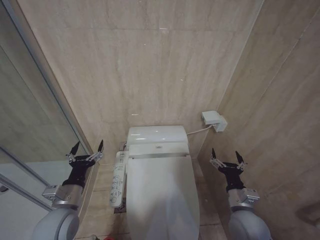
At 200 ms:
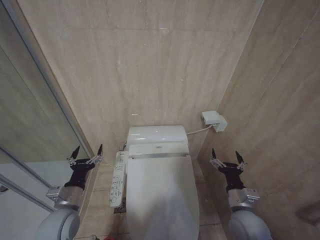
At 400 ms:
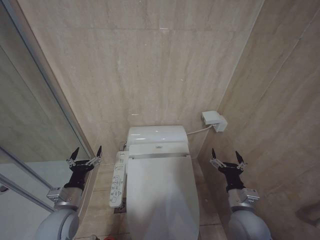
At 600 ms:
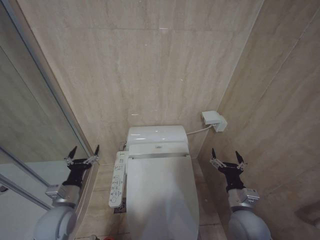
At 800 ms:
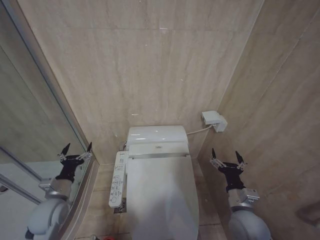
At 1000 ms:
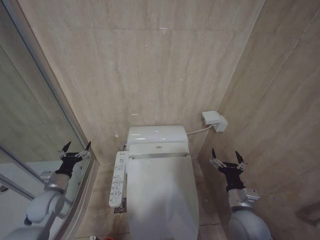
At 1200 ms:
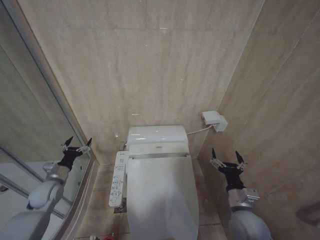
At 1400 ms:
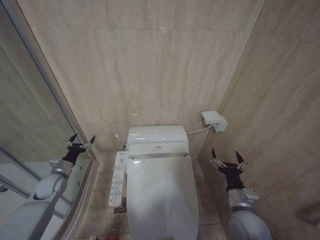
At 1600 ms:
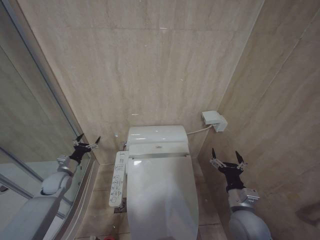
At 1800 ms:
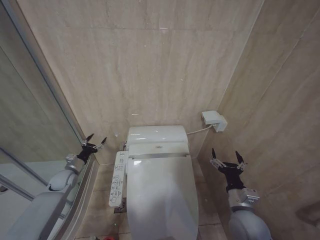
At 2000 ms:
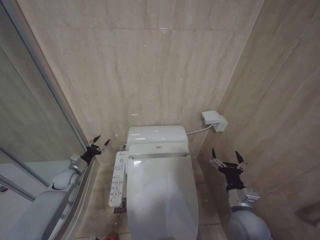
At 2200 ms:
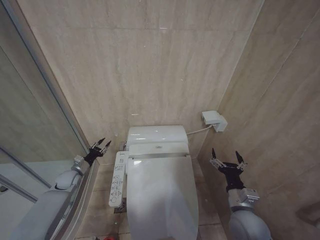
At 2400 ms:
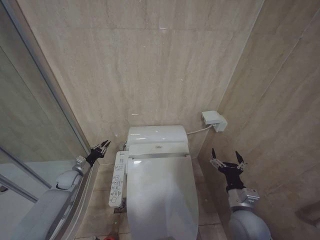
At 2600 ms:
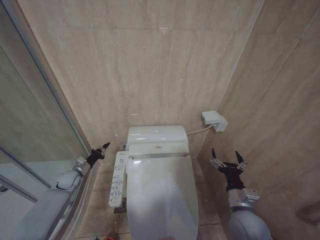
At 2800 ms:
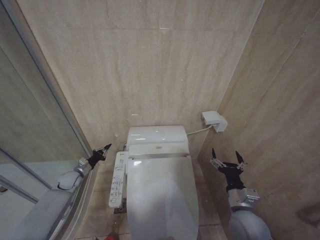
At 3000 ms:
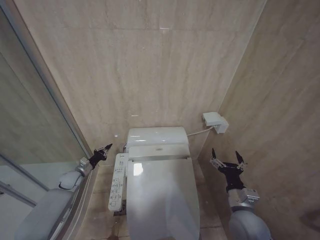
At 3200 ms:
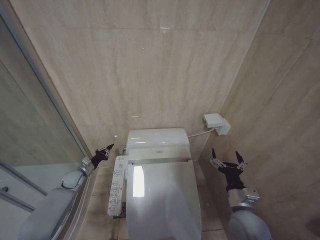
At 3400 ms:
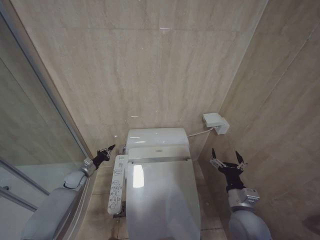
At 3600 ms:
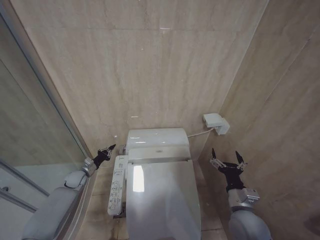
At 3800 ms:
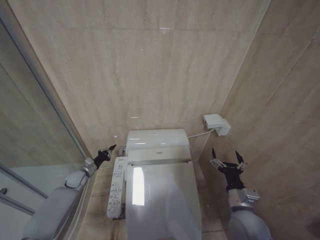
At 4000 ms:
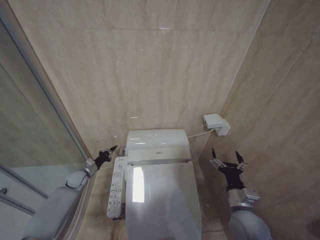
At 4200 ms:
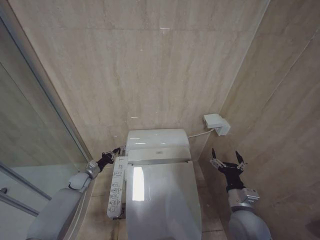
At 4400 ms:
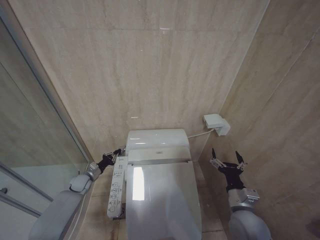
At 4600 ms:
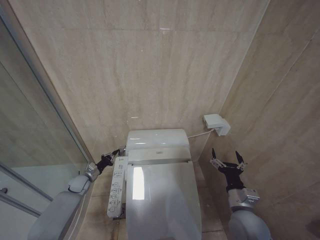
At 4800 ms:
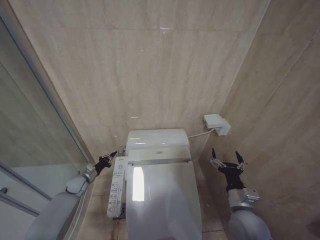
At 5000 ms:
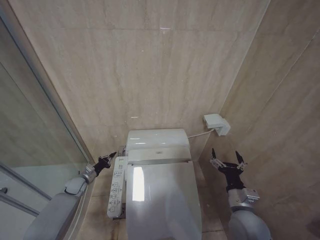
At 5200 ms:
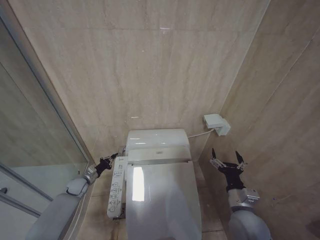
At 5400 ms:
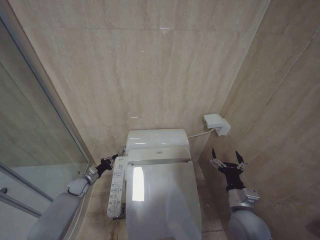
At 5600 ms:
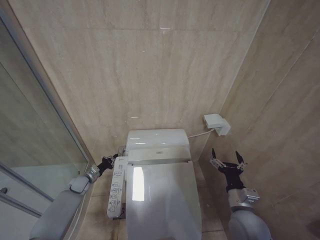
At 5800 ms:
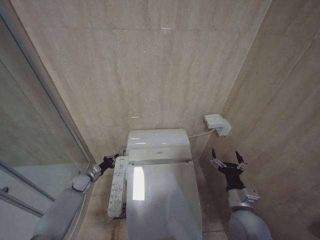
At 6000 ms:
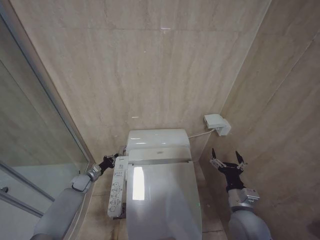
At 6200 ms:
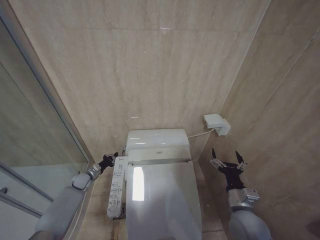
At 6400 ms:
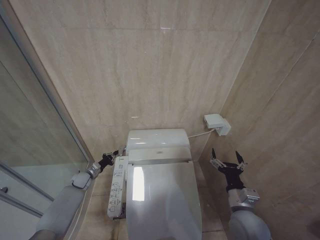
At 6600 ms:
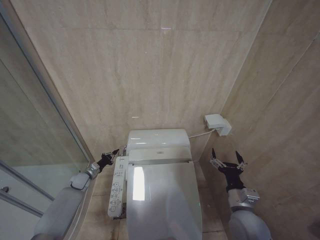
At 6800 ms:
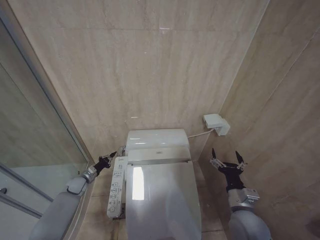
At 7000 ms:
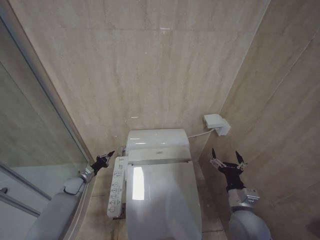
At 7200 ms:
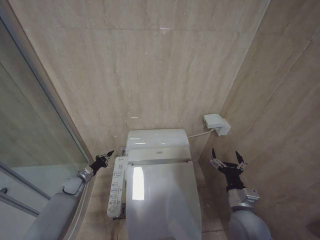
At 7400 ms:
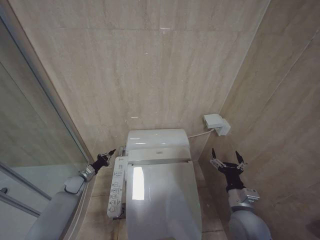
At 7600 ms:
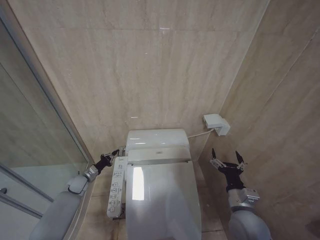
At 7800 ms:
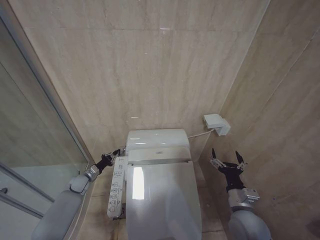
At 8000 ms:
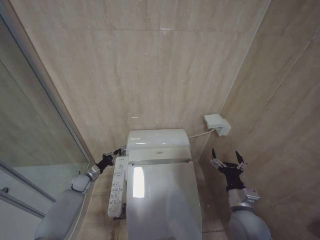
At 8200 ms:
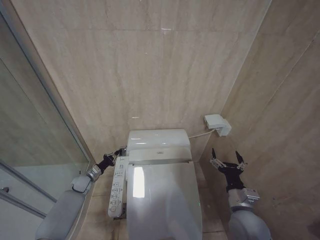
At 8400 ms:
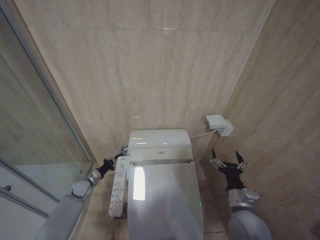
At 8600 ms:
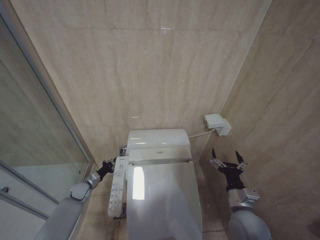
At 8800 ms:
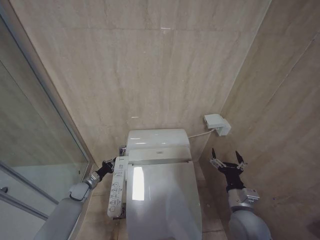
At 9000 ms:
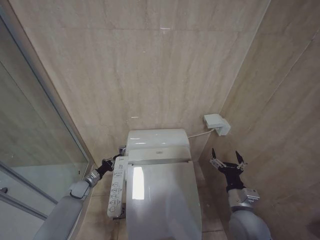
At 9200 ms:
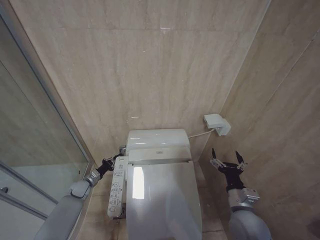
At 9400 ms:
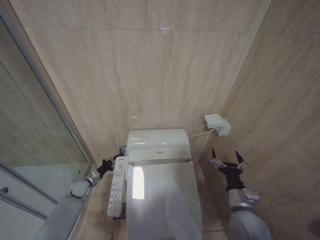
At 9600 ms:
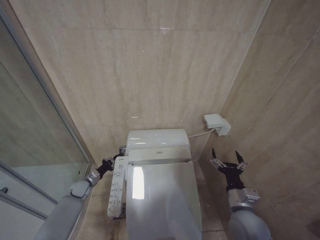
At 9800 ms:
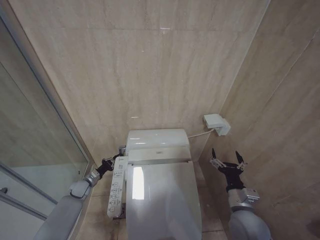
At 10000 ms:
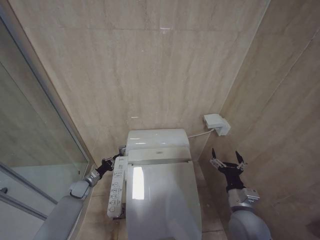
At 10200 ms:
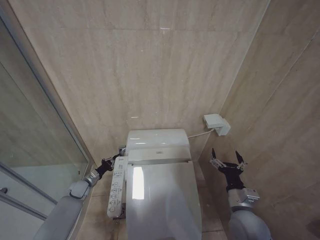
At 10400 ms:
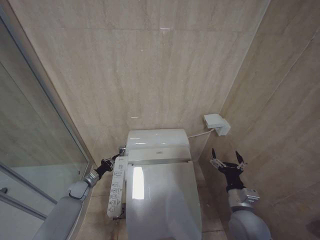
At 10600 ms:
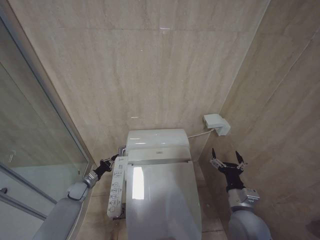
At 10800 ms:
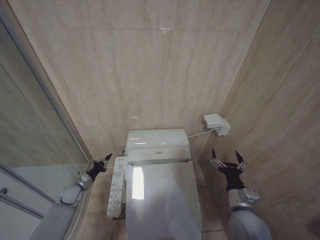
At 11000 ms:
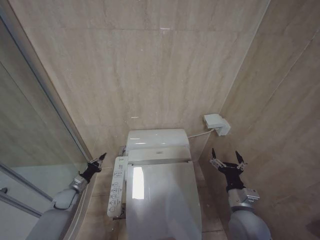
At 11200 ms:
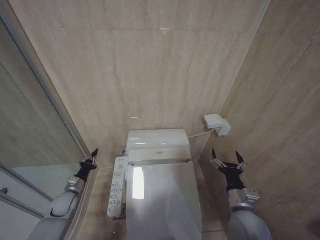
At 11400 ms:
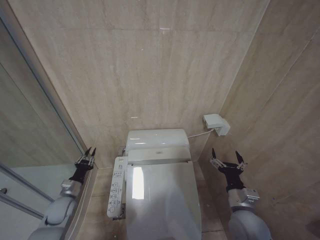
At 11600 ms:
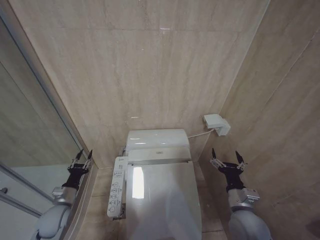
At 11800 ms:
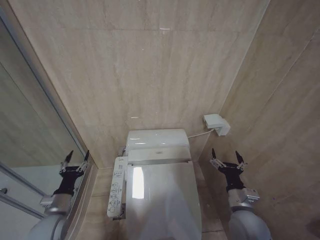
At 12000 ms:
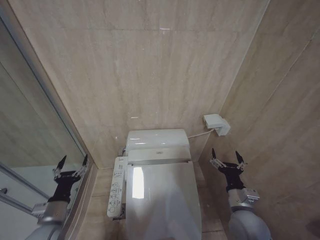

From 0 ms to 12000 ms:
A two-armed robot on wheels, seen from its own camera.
Task of the whole recording: Open the toilet lid, clean the toilet bowl with a toilet brush, close the toilet lid, and flush.
From 0 ms to 1600 ms: The left gripper is displaced forward, to the left and downward by some 25 cm.
From 1600 ms to 3000 ms: The left gripper goes roughly 5 cm downward, and closes up.
From 3000 ms to 4400 ms: The grippers move only a little.
From 6000 ms to 7600 ms: The grippers move only a little.
From 9000 ms to 10400 ms: Neither gripper changes place.
From 10400 ms to 12000 ms: The left gripper travels backward and upward by about 25 cm, and opens.

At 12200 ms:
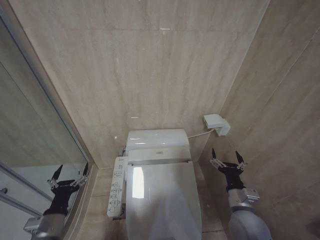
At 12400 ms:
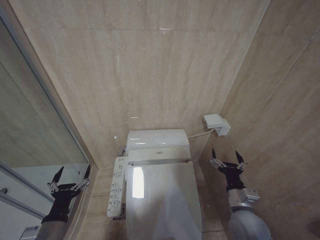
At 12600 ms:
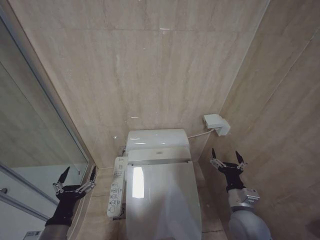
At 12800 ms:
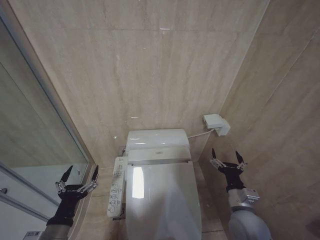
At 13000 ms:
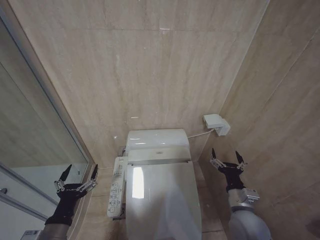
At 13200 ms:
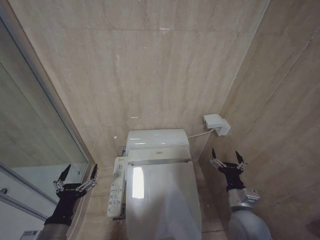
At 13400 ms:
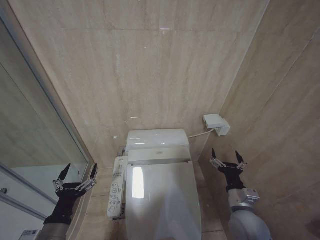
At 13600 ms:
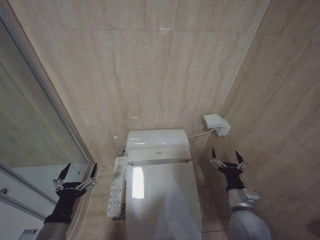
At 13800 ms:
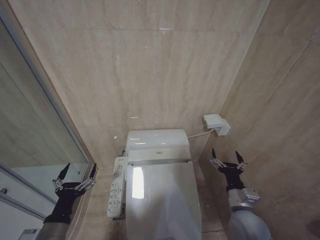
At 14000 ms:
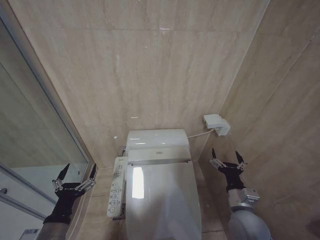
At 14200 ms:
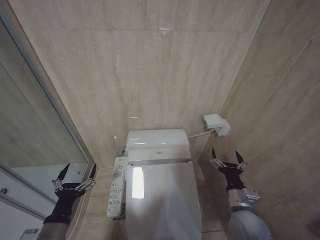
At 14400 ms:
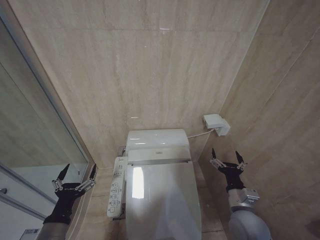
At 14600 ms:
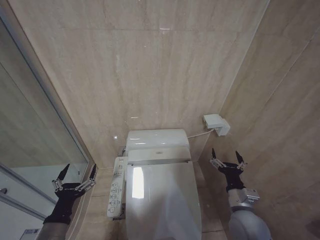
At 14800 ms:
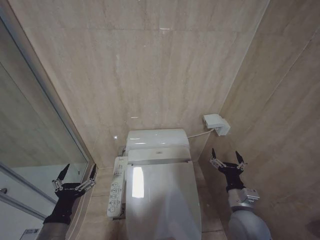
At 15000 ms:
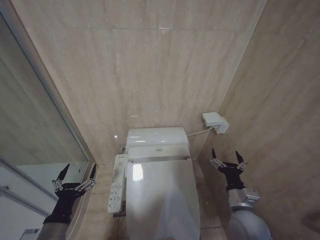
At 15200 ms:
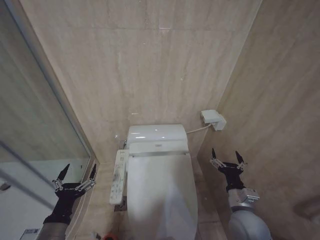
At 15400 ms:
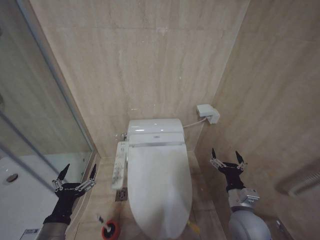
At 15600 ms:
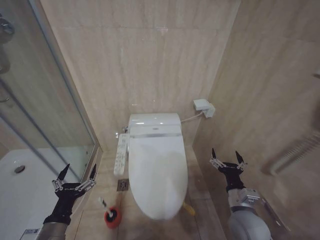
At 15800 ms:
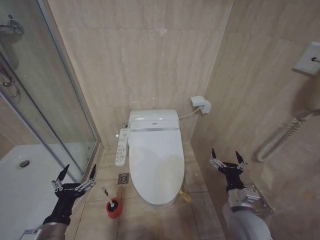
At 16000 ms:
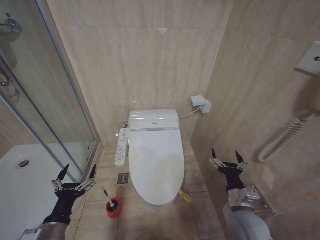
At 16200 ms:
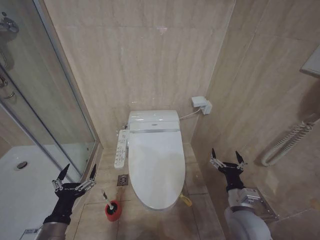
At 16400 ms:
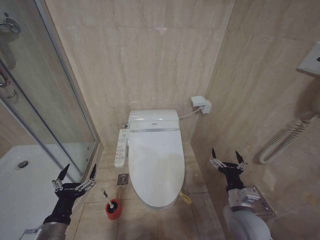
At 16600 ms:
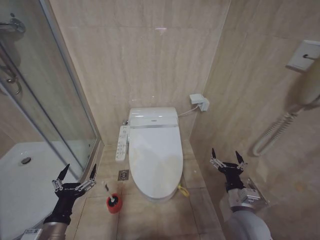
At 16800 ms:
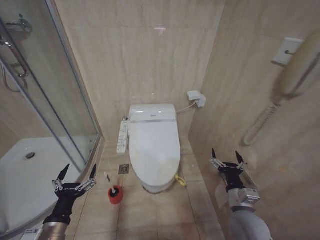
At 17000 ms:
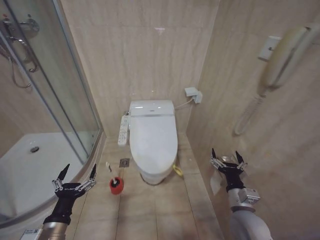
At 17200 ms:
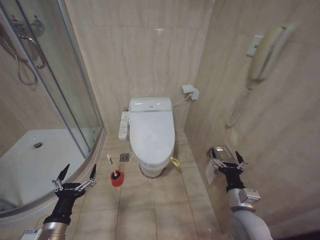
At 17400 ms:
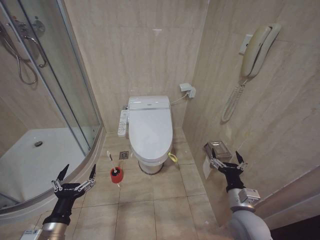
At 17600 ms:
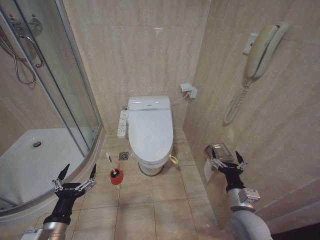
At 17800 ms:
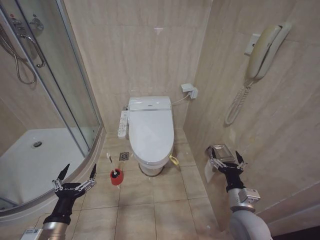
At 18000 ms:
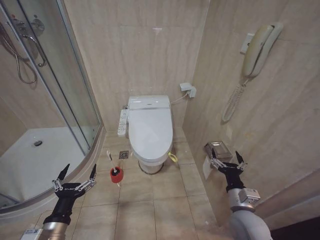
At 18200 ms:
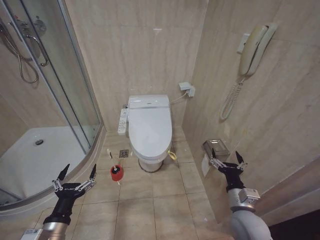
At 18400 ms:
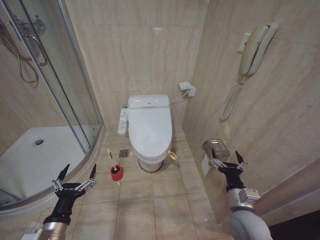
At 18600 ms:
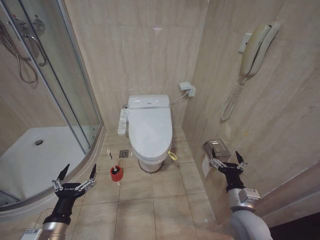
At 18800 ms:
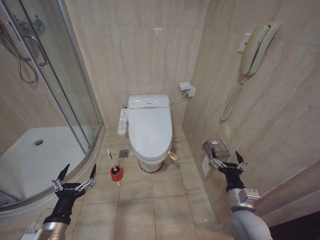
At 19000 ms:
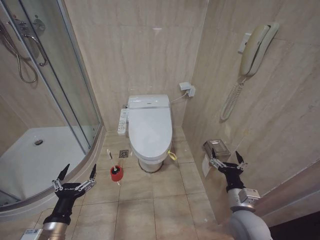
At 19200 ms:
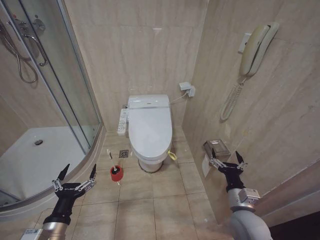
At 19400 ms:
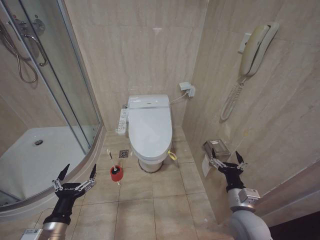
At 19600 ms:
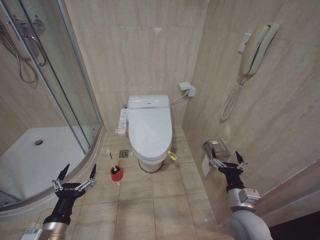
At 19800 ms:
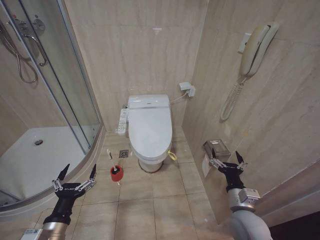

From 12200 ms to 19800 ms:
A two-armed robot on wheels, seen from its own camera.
Task of the whole recording: Open the toilet lid, clean the toilet bowl with a toilet brush, close the toilet lid, and flush.
From 12200 ms to 13800 ms: The left gripper changes place by about 5 cm.
From 13800 ms to 15200 ms: Both grippers stay put.
From 18200 ms to 19800 ms: Both grippers stay put.
